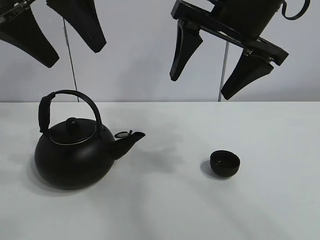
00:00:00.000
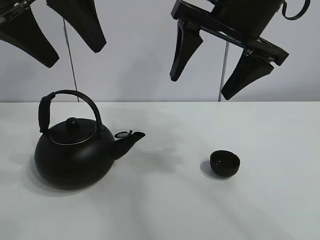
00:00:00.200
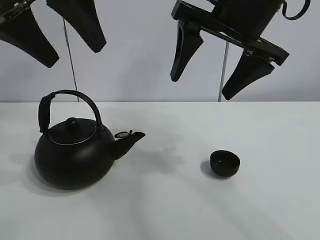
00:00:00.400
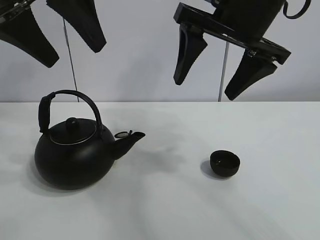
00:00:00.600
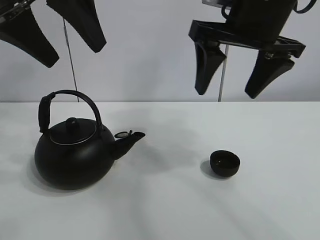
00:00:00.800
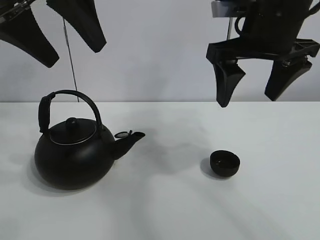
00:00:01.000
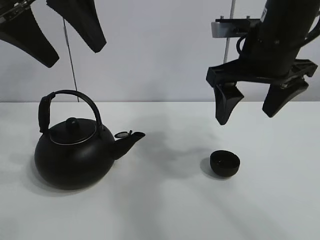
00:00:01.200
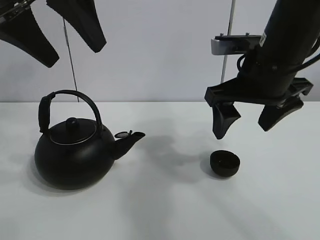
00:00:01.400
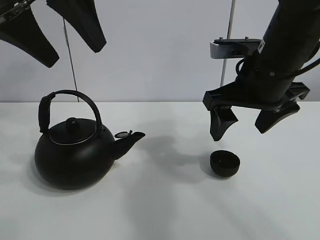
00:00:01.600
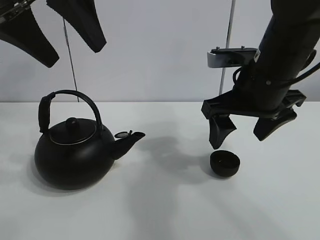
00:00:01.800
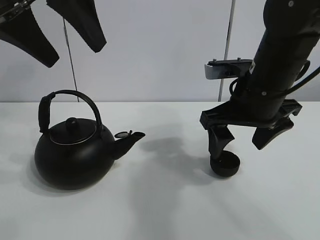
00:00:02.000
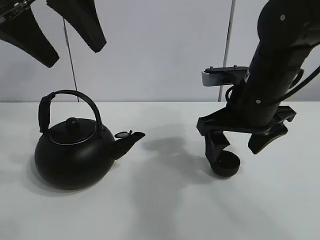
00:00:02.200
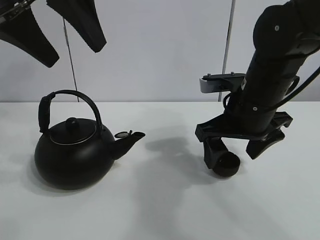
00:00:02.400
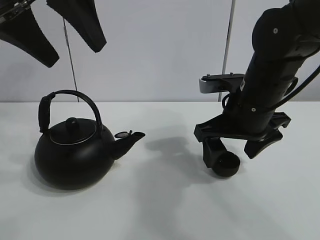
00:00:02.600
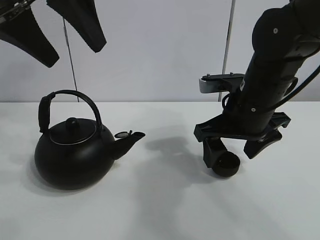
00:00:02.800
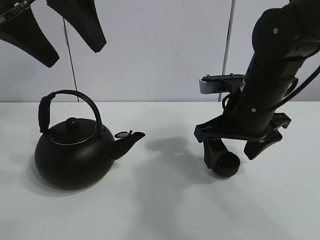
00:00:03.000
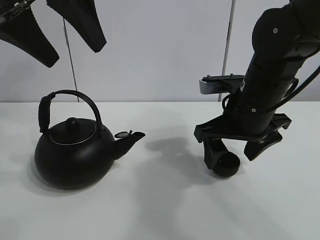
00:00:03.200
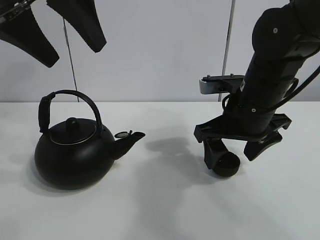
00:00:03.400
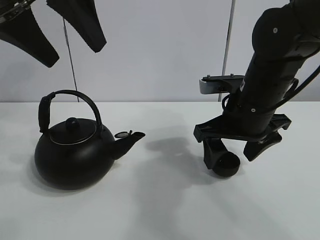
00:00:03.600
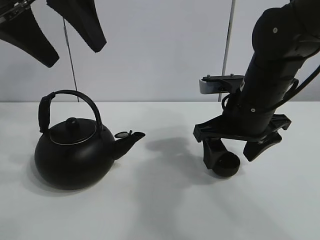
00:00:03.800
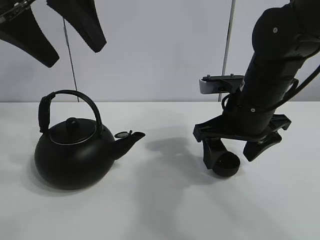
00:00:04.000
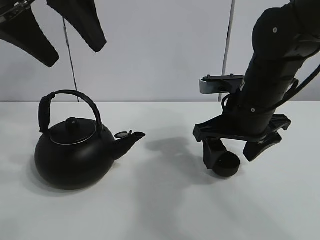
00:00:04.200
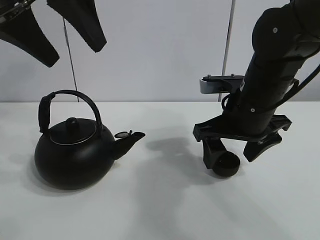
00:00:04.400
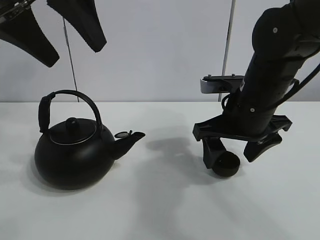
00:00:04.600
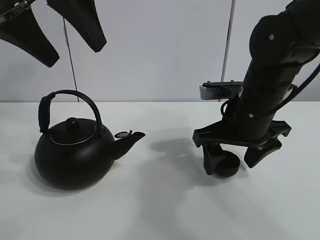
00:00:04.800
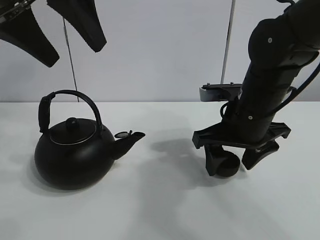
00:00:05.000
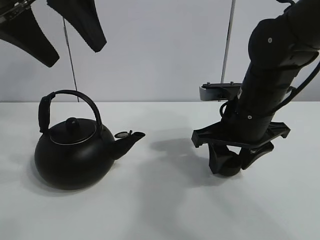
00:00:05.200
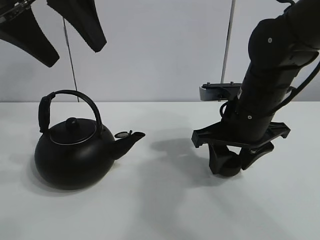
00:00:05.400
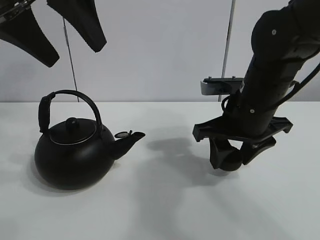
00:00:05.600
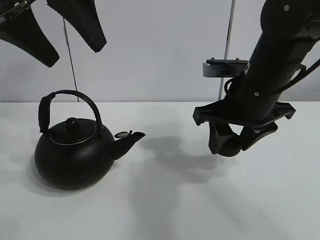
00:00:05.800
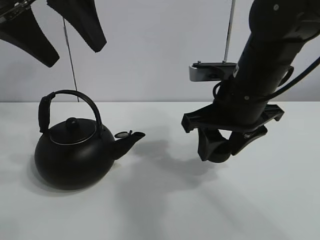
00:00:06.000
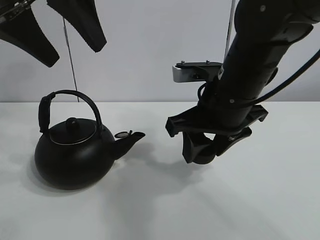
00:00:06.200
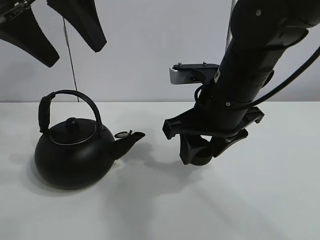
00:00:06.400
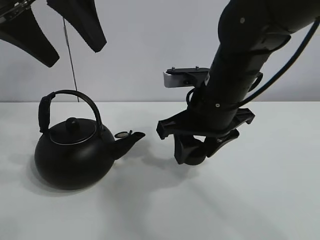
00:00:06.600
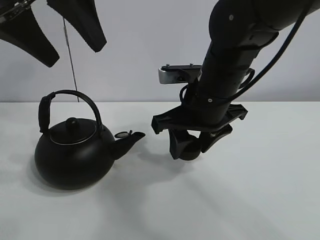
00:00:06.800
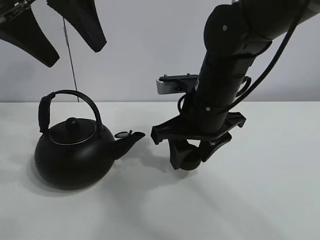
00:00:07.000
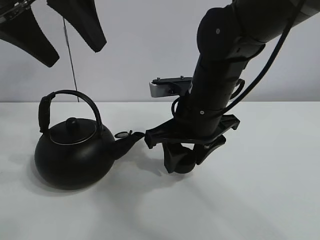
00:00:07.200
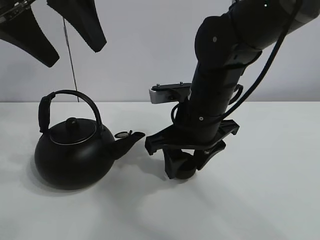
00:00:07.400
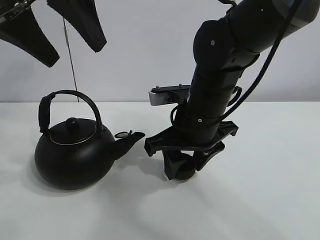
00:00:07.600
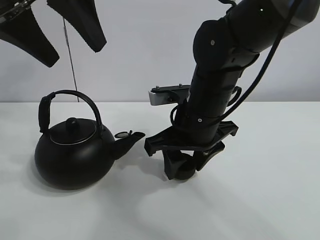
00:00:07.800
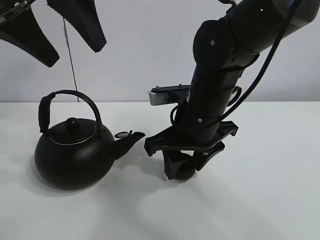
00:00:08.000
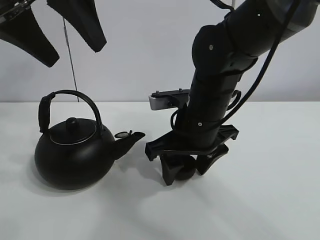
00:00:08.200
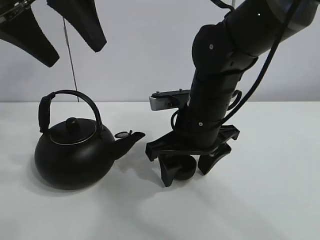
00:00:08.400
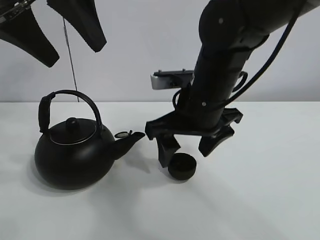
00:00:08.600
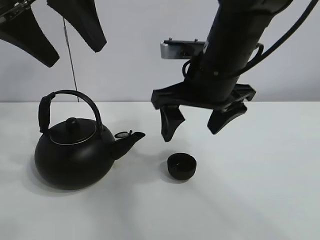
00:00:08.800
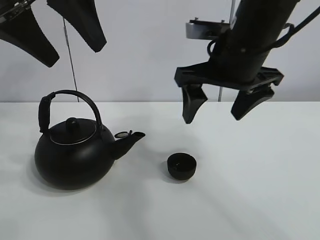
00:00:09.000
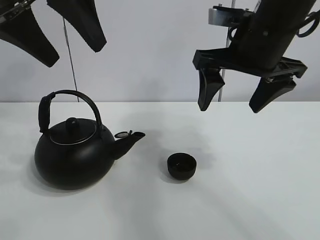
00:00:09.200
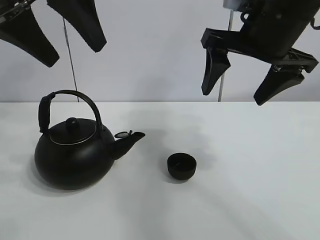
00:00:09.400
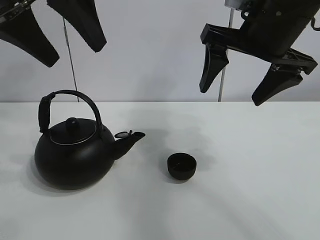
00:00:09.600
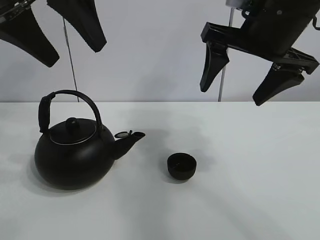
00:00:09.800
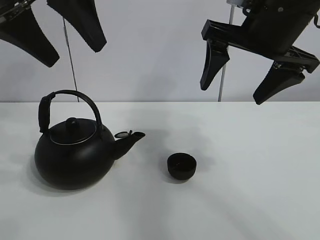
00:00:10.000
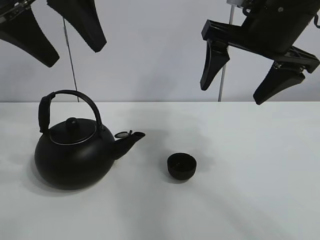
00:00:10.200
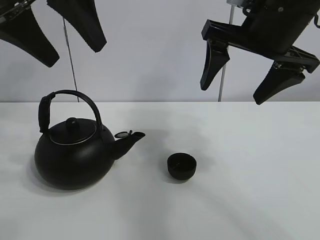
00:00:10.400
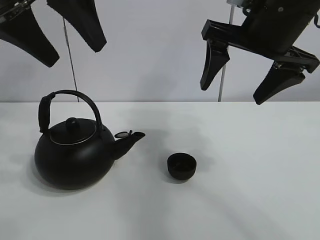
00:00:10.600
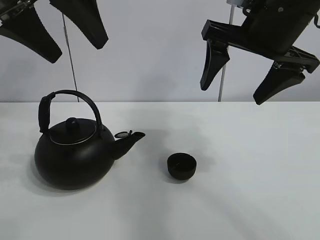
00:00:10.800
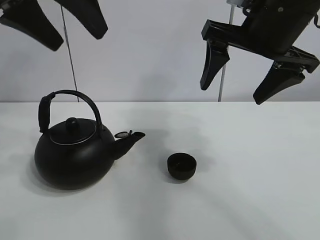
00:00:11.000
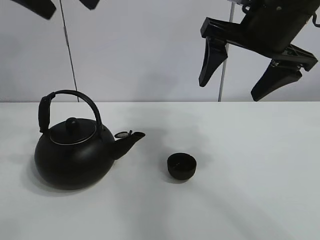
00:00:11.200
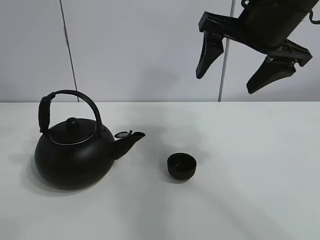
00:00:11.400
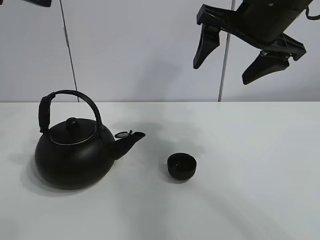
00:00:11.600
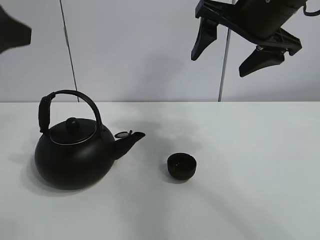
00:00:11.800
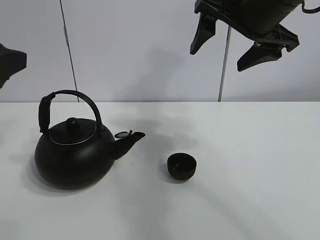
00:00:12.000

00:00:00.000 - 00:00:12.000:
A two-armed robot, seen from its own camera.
Task of the whole recording: pour tea into the teacup.
Step, 00:00:00.000 - 00:00:05.200: Pick up the teacup with the right gripper.
Step, 00:00:05.400 - 00:00:08.400: Place the teacup in the center of view with the right gripper.
00:00:01.600 - 00:00:03.000: The right gripper travels downward by some 5 cm.
00:00:03.000 - 00:00:04.400: Both grippers stay about where they are.
00:00:04.400 - 00:00:06.000: The right gripper closes up.
00:00:06.000 - 00:00:07.600: The right gripper moves to the left, about 5 cm.
00:00:07.600 - 00:00:09.000: The right gripper goes roughly 10 cm upward, and opens up.
00:00:09.000 - 00:00:10.400: The right gripper ends up roughly 5 cm from where it was.
00:00:10.400 - 00:00:12.000: The left gripper travels downward, to the left and backward by some 15 cm.

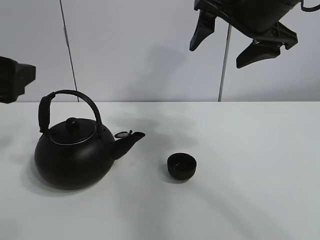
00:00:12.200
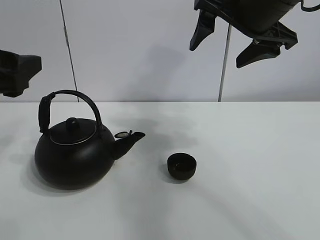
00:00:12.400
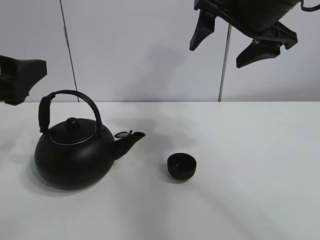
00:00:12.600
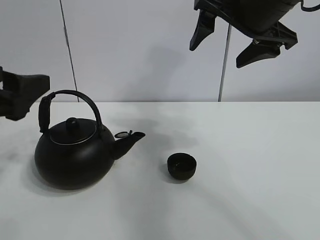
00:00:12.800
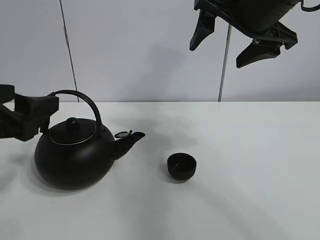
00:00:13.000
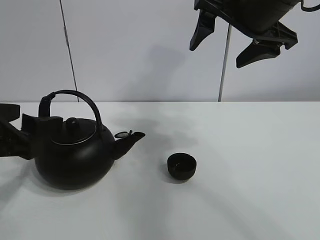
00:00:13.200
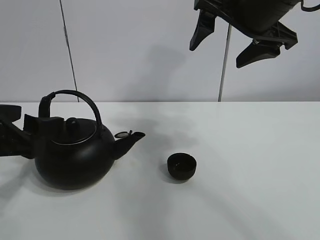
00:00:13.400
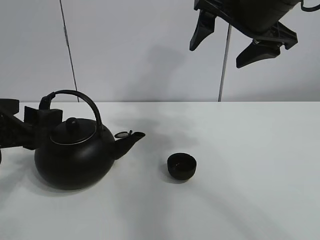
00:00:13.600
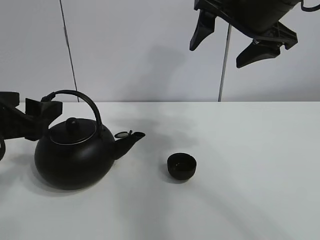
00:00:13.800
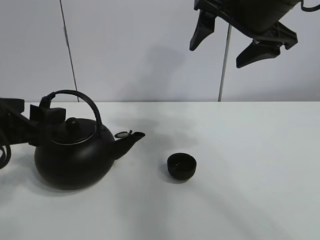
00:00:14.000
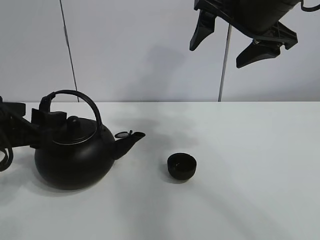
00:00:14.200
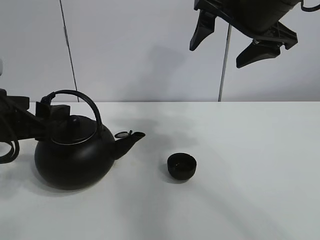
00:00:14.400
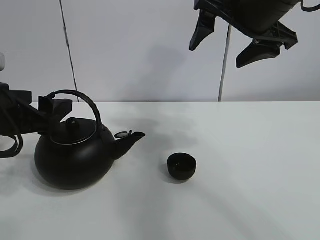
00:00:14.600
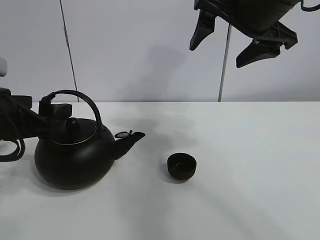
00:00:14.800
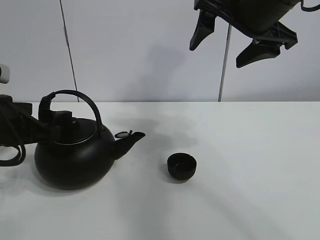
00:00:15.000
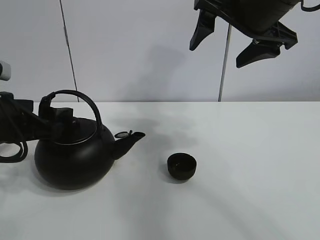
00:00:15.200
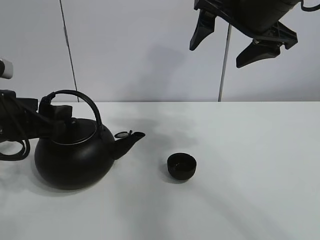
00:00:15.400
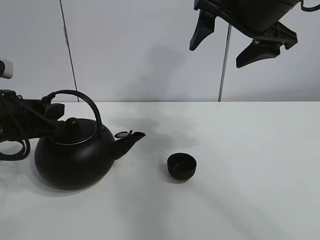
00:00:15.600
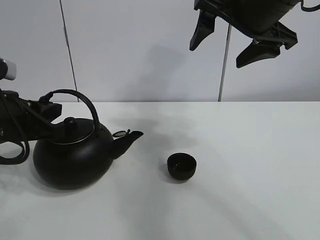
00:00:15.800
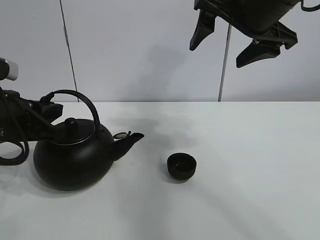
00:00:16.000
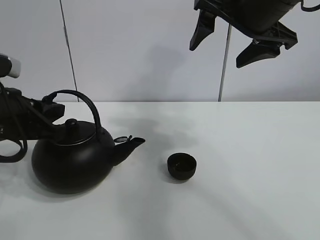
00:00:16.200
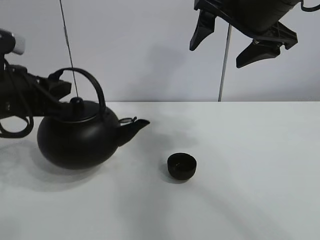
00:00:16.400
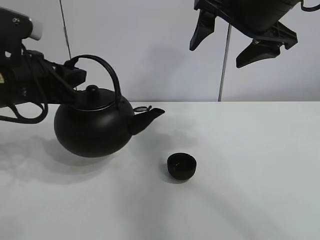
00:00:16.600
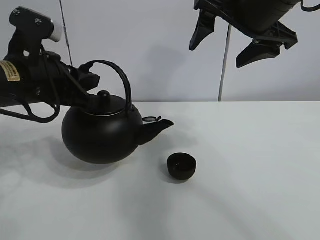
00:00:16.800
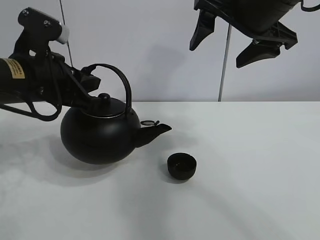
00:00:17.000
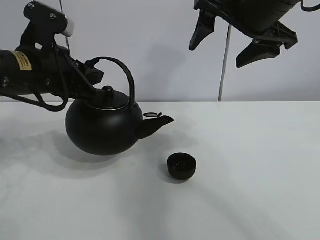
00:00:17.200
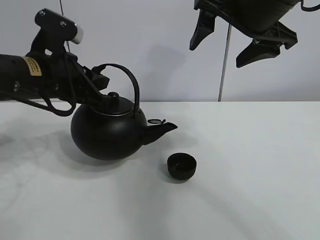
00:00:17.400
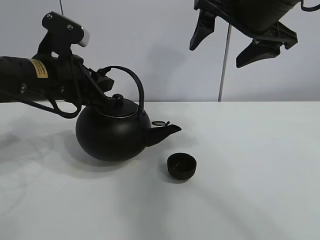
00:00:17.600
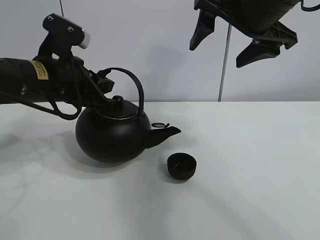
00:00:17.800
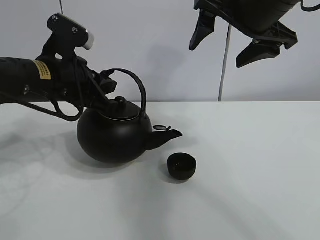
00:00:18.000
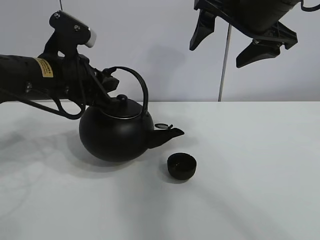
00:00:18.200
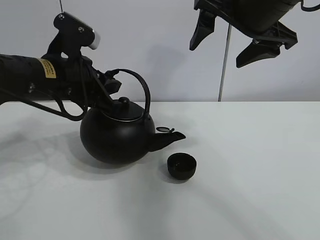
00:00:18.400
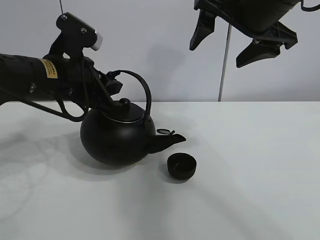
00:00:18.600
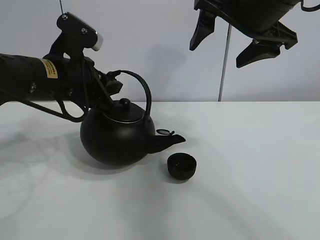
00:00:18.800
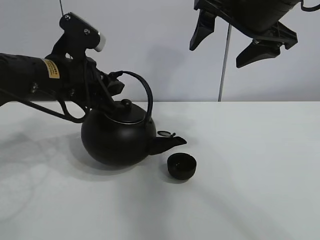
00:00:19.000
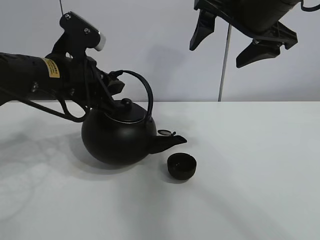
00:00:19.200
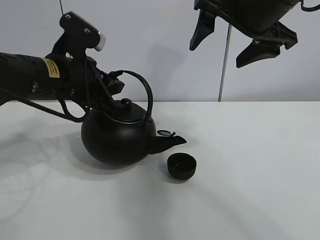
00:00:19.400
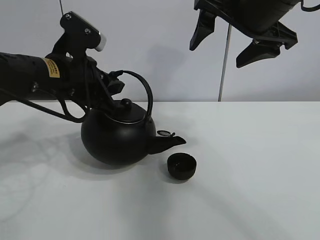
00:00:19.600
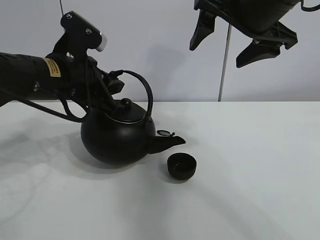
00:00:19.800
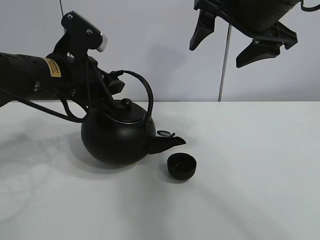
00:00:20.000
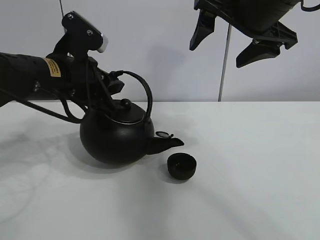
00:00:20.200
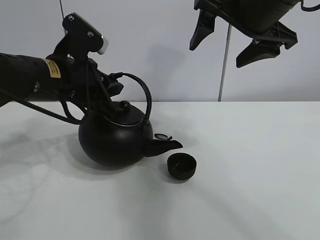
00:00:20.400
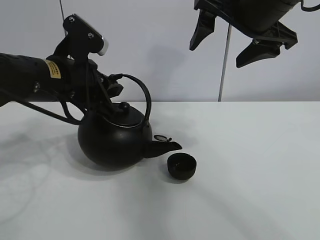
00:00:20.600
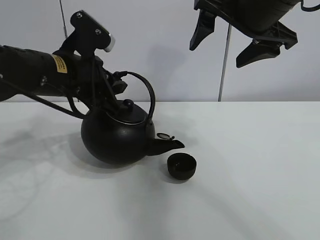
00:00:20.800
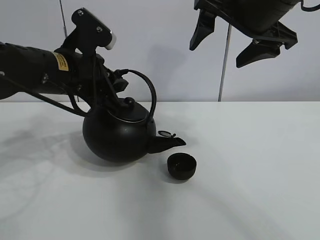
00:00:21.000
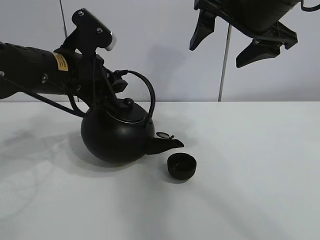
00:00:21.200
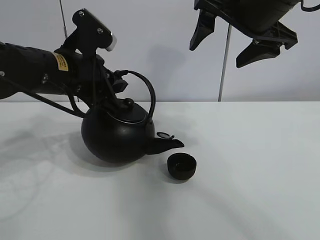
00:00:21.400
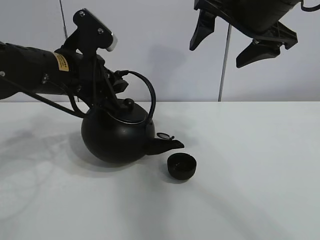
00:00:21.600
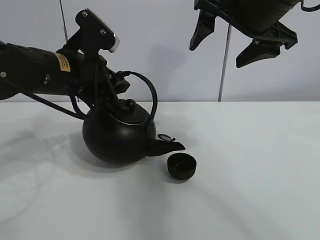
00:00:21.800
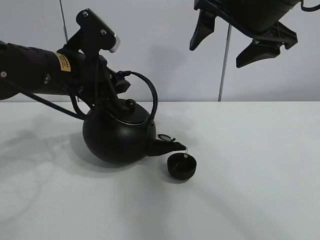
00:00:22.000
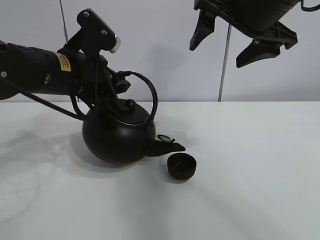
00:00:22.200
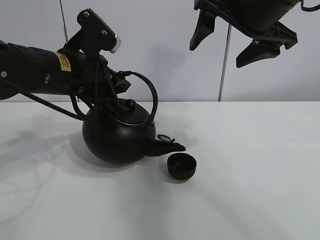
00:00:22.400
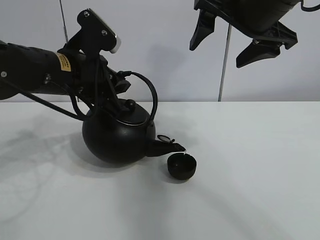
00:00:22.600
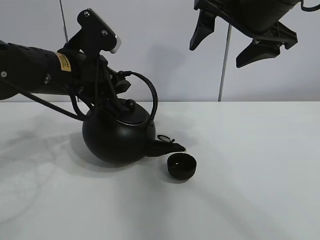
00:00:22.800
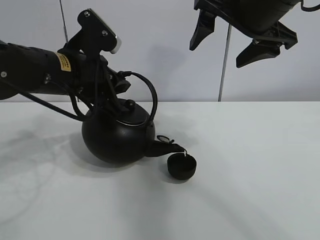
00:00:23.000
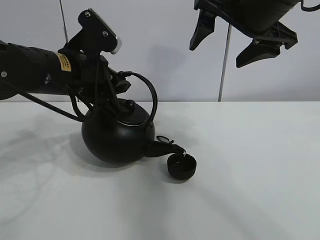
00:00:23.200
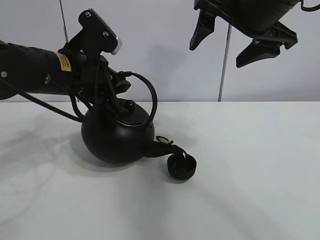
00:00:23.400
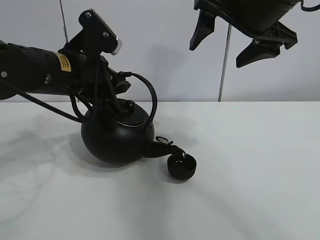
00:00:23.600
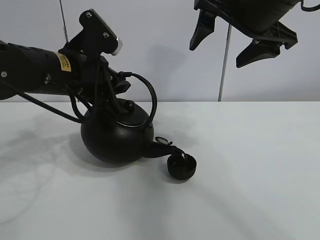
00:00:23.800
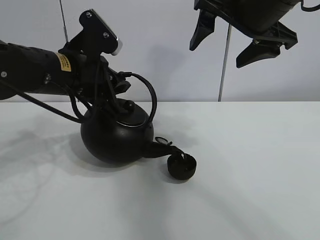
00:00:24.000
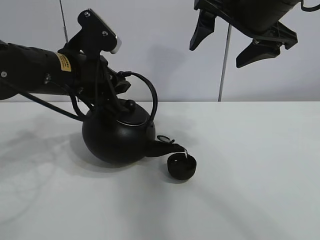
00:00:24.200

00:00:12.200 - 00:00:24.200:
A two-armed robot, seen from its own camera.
Task of the whole recording: pour tea into the teacup.
Step, 00:00:12.200 - 00:00:15.800: Pick up the teapot with the left gripper.
00:00:12.200 - 00:00:13.800: The left gripper shifts approximately 5 cm downward.
00:00:13.800 - 00:00:15.200: The grippers make only small movements.
00:00:15.200 - 00:00:16.600: The left gripper moves upward, about 5 cm, and closes.
00:00:16.600 - 00:00:18.200: The left gripper changes place by about 5 cm.
00:00:18.200 - 00:00:19.800: The grippers move only a little.
00:00:19.800 - 00:00:21.200: Neither gripper changes place.
00:00:21.200 - 00:00:22.600: Both grippers stay about where they are.
00:00:22.600 - 00:00:24.200: Both grippers stay about where they are.
